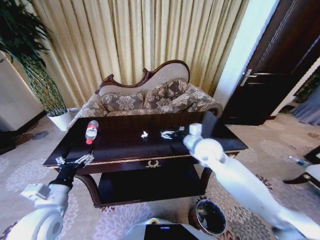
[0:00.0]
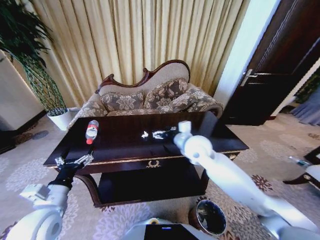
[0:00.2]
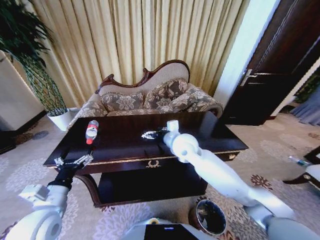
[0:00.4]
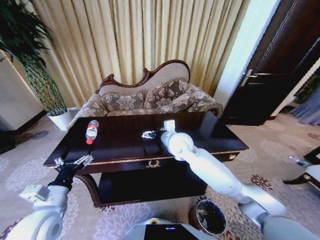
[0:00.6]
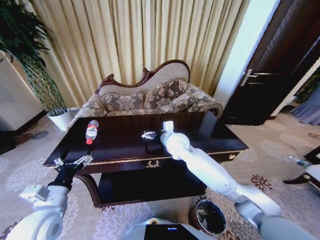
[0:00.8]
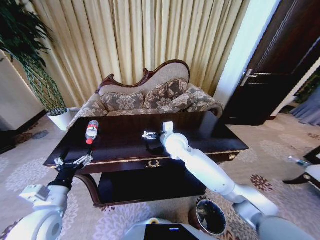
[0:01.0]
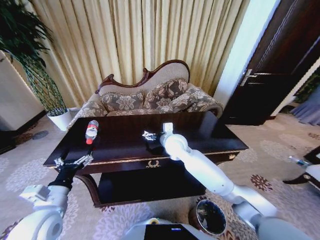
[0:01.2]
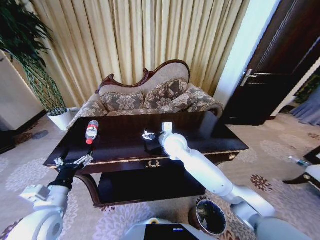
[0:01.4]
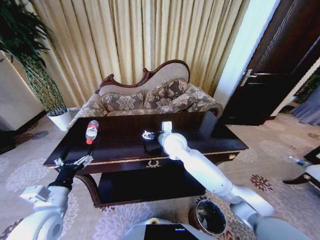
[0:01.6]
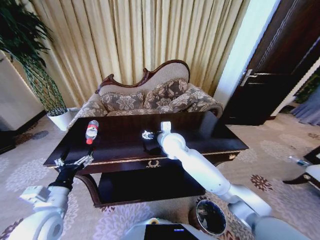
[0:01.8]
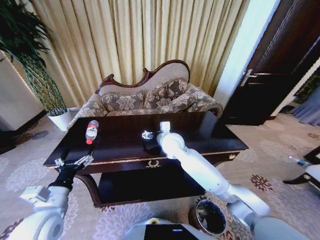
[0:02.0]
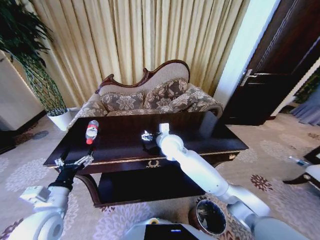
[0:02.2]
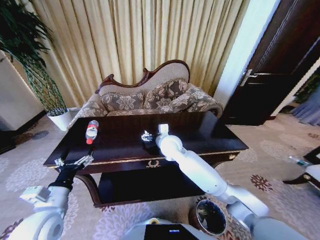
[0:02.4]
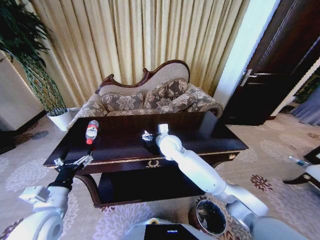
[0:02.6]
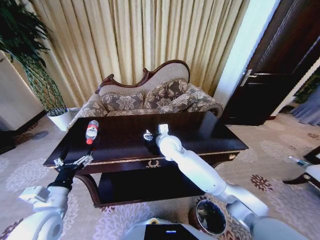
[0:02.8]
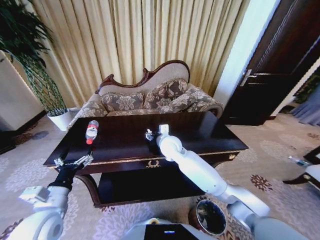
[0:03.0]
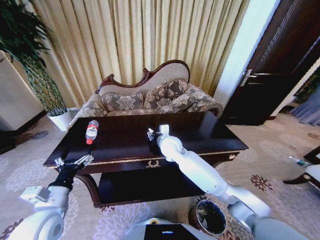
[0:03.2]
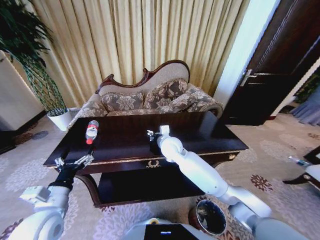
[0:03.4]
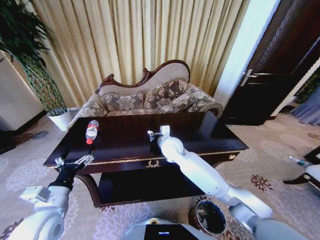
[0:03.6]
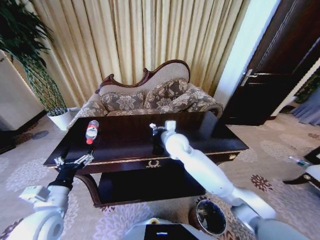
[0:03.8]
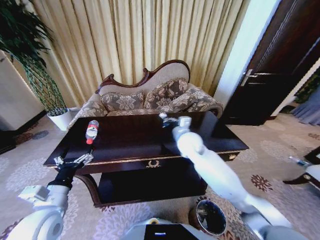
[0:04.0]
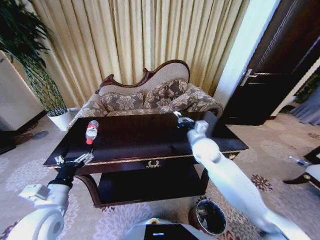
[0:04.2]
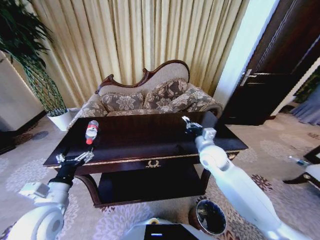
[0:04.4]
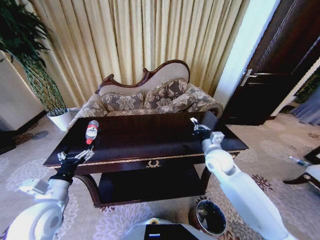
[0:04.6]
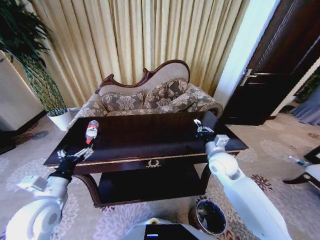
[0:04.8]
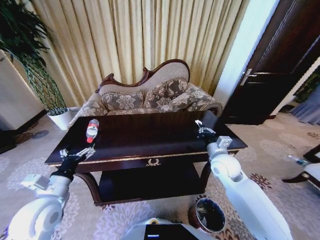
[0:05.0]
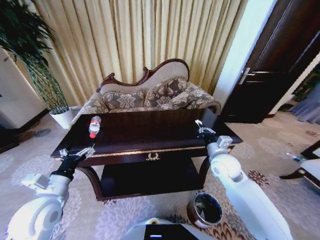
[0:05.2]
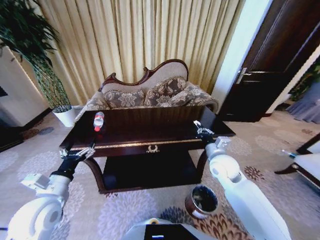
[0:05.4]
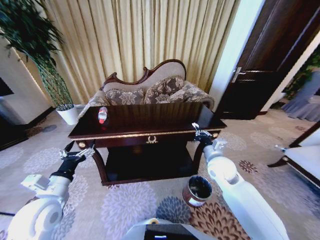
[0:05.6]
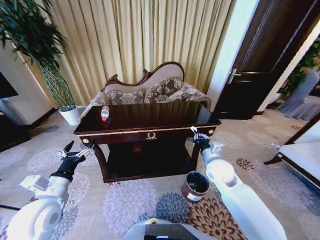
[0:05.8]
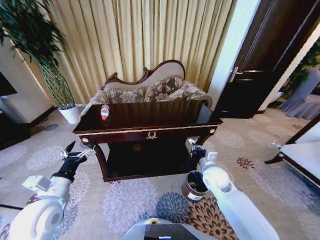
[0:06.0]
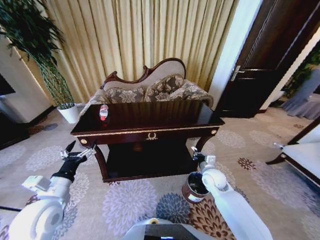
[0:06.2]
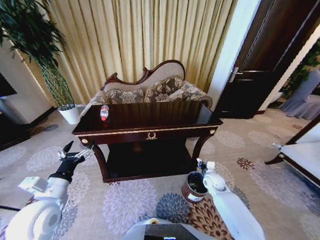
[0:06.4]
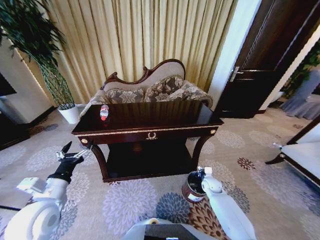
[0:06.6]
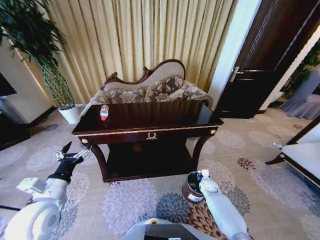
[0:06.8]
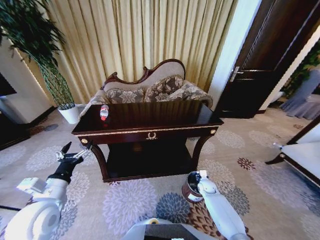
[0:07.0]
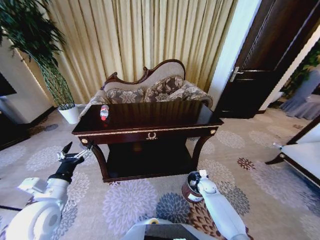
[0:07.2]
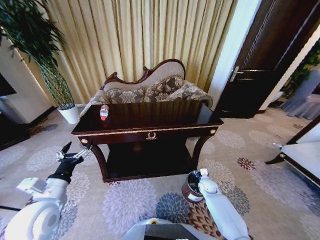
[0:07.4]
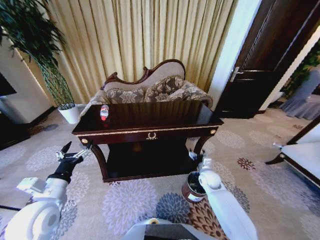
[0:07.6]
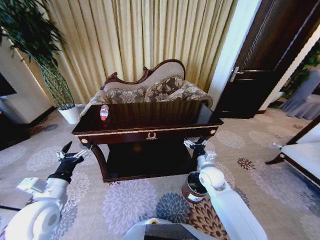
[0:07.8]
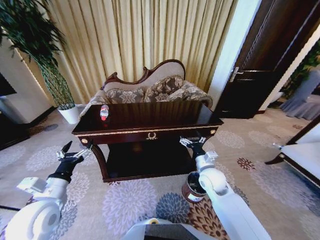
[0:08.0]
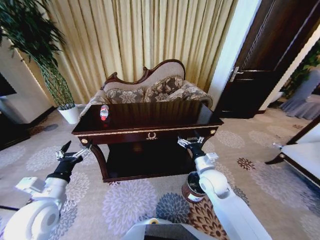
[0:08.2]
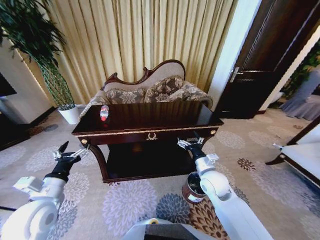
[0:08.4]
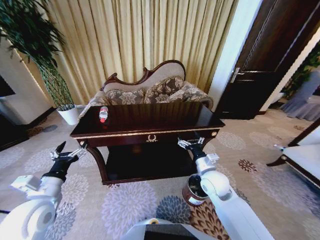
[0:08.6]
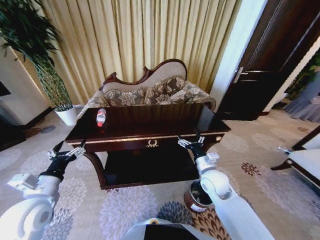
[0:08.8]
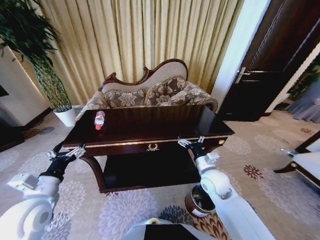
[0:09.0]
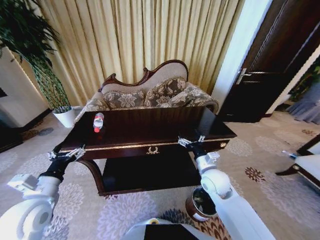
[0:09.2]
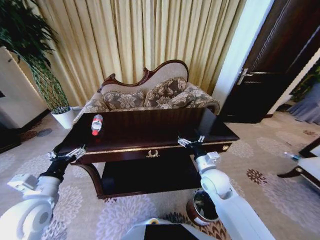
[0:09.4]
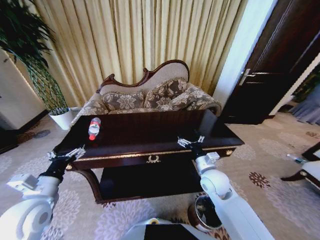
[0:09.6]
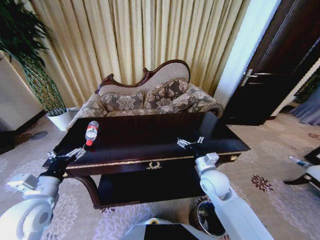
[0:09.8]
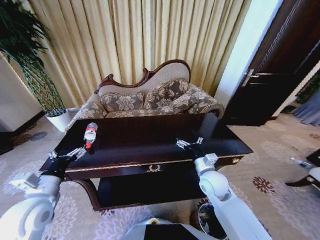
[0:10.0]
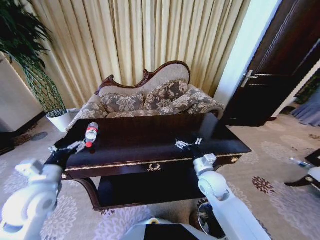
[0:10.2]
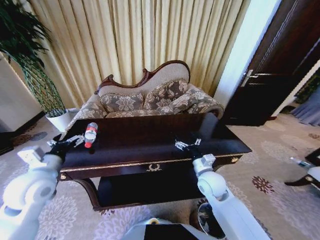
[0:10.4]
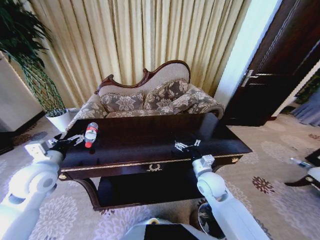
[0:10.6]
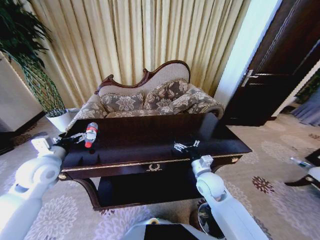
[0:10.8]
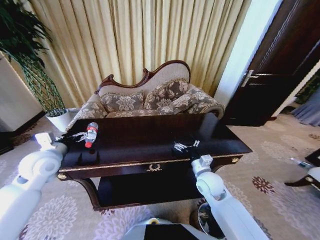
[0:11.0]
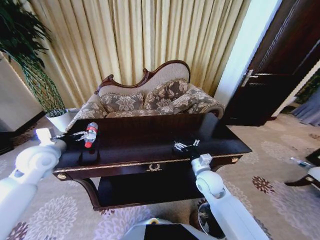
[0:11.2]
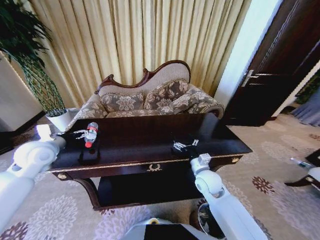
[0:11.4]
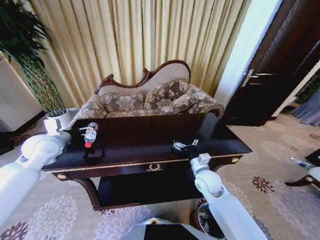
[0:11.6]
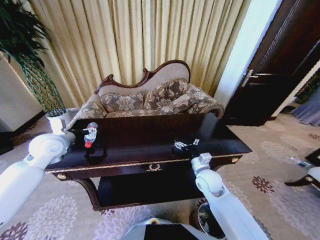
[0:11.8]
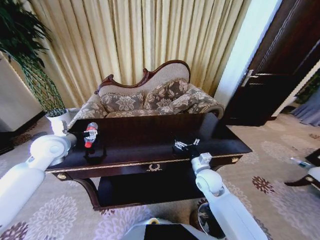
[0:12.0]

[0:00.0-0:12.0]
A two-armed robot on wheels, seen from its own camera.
Task of the whole recording: Move to the front of the table and place the trash on the table into the trash bin.
0:00.0 to 0:01.6: The right gripper goes about 10 cm to the left.
0:01.6 to 0:03.0: The right gripper closes.
0:03.0 to 0:04.4: The right gripper shifts about 15 cm to the right, and closes.
0:04.4 to 0:06.0: The right gripper heads downward, covering roughly 10 cm.
0:06.0 to 0:07.6: The right gripper is displaced downward by some 10 cm, and opens its fingers.
0:07.6 to 0:09.0: The right gripper goes about 15 cm upward, backward and to the left.
0:09.0 to 0:10.4: The left gripper shifts approximately 5 cm forward.
0:10.4 to 0:12.0: The left gripper moves forward, about 10 cm.

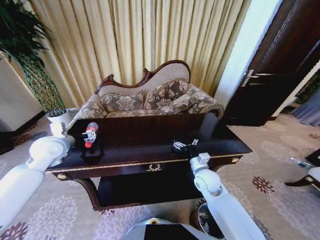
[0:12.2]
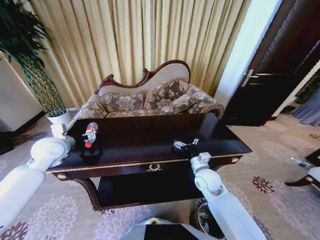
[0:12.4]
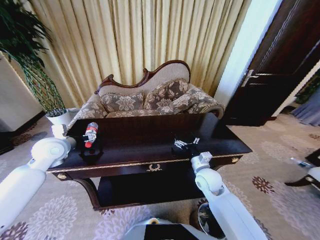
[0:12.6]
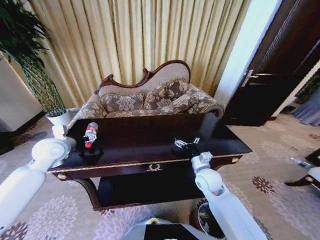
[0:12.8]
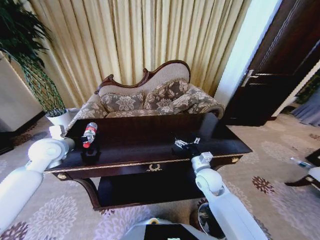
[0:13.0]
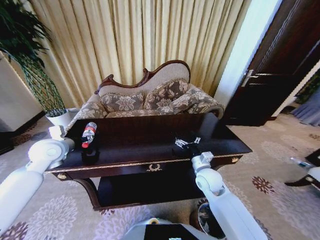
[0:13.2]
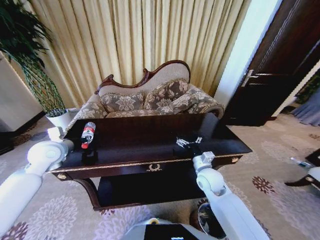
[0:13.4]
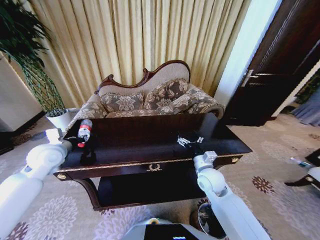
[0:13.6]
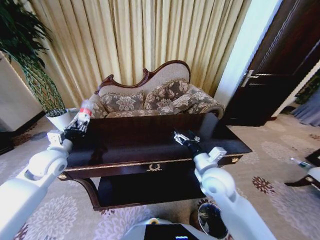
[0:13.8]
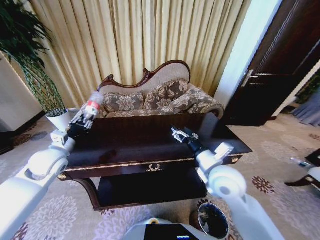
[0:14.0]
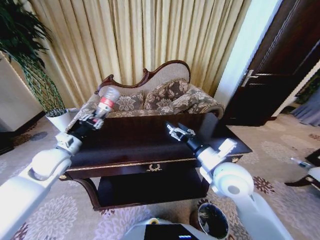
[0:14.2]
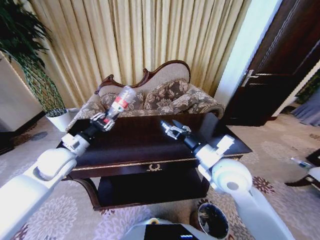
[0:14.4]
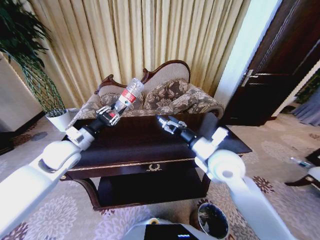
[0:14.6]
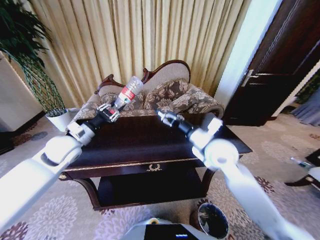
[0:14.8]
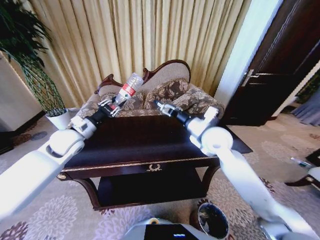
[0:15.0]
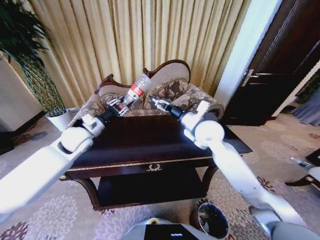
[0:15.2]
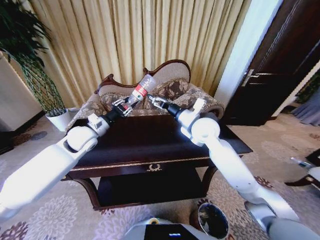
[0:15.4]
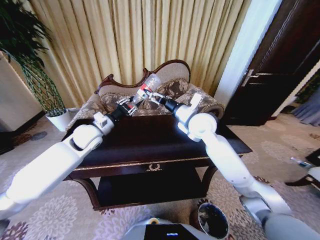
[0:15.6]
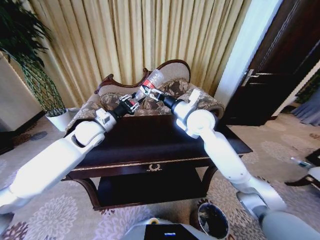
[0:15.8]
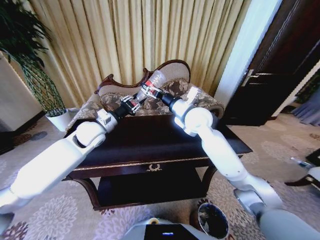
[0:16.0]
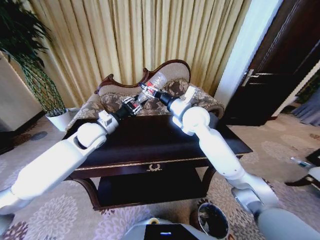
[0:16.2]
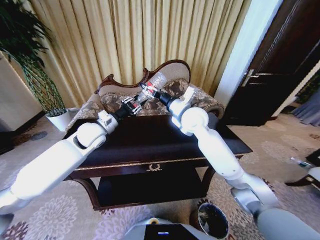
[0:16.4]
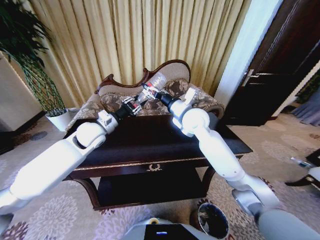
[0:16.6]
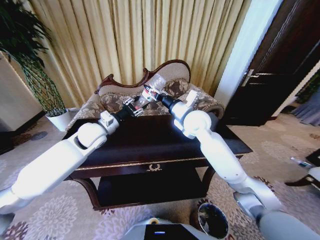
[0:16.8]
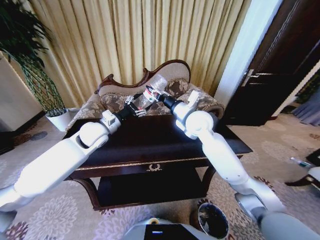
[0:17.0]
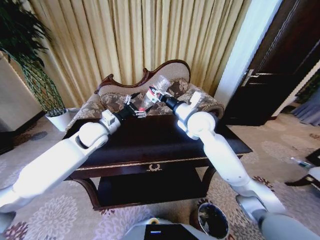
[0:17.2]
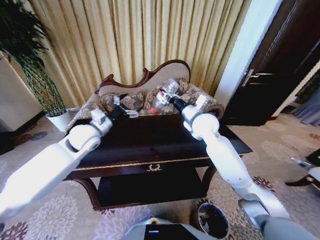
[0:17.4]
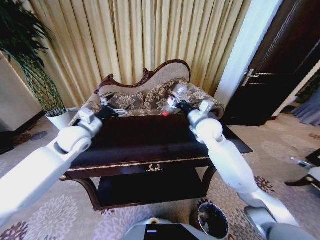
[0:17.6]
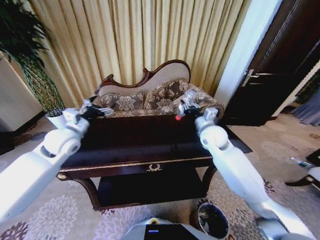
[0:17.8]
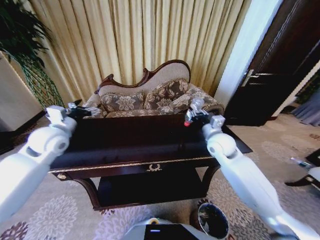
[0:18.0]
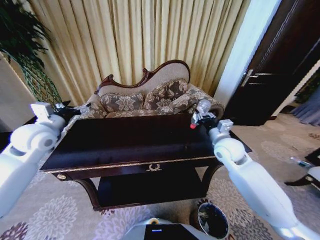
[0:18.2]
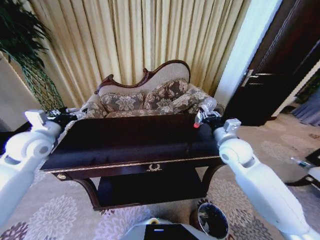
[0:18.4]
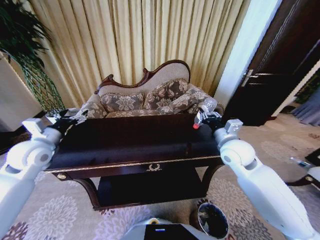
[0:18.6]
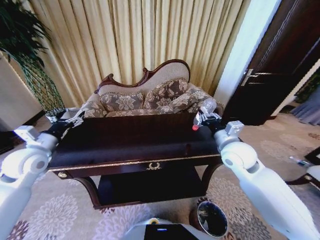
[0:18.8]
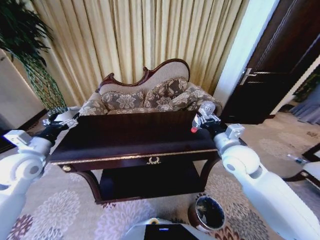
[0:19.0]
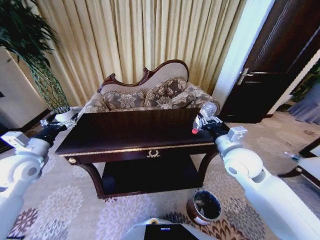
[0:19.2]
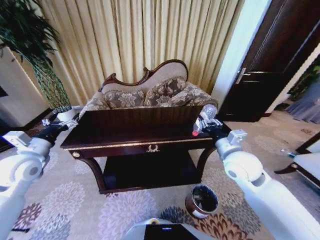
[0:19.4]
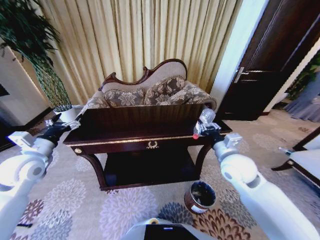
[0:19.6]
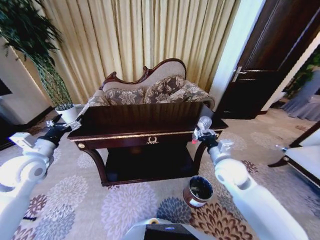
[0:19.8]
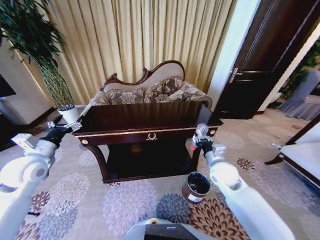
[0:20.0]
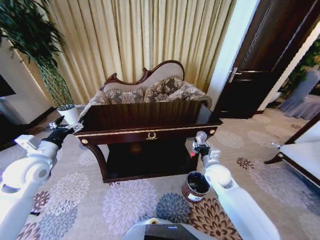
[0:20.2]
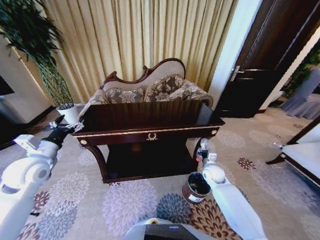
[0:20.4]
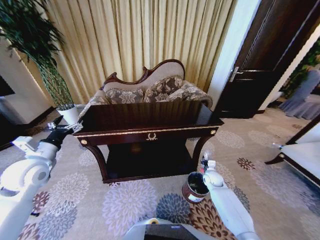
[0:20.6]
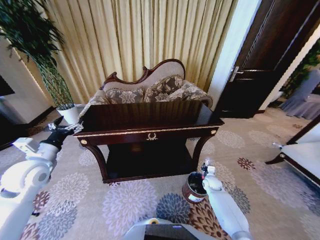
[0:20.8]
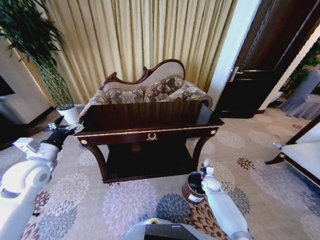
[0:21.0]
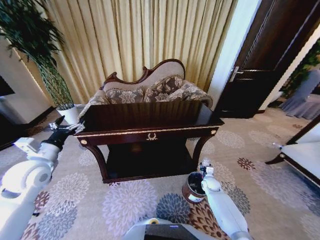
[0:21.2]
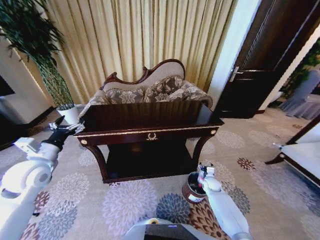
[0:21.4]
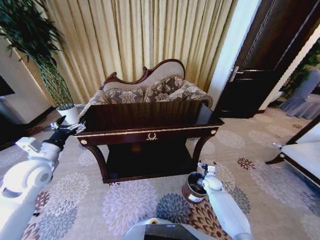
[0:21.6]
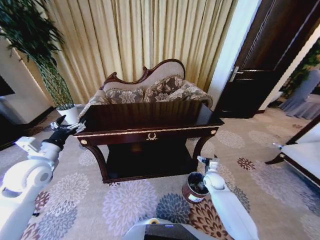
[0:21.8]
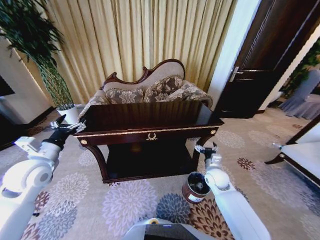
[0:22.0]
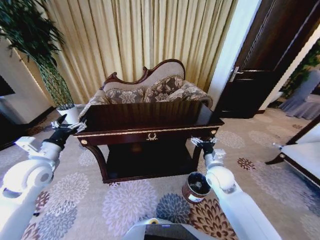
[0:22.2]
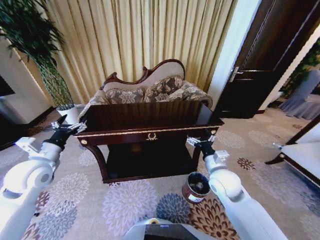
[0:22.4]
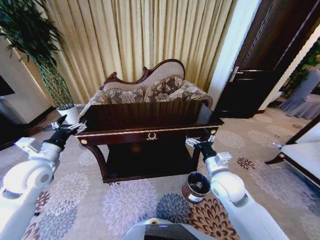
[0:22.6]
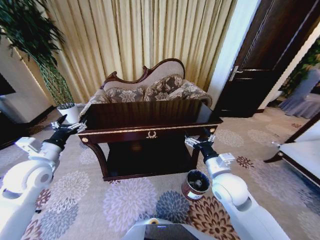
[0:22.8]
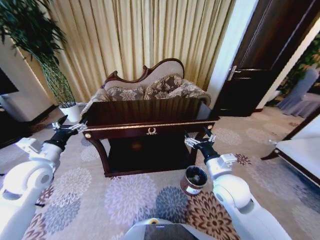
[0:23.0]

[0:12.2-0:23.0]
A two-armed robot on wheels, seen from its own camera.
Task of the whole recording: Move to the front of the table and place the trash on the table into the trash bin.
0:12.2 to 0:13.8: The left gripper shifts by some 5 cm, and closes its fingers, while the right gripper shifts some 10 cm upward.
0:13.8 to 0:15.2: The left gripper heads to the right and forward, covering approximately 10 cm. The right gripper goes roughly 15 cm forward and upward.
0:15.2 to 0:16.8: The left gripper is displaced to the right by about 5 cm; the right gripper changes place by some 5 cm, and closes its fingers.
0:16.8 to 0:18.4: The left gripper travels to the left and backward by about 15 cm, and opens up. Meanwhile the right gripper heads to the right, downward and backward, covering roughly 20 cm.
0:18.4 to 0:20.0: The right gripper travels downward by about 10 cm. Meanwhile the left gripper is displaced downward and backward by roughly 10 cm.
0:20.0 to 0:21.4: The right gripper travels downward by about 25 cm, and opens up.
0:21.4 to 0:23.0: The right gripper heads upward, covering about 30 cm.
